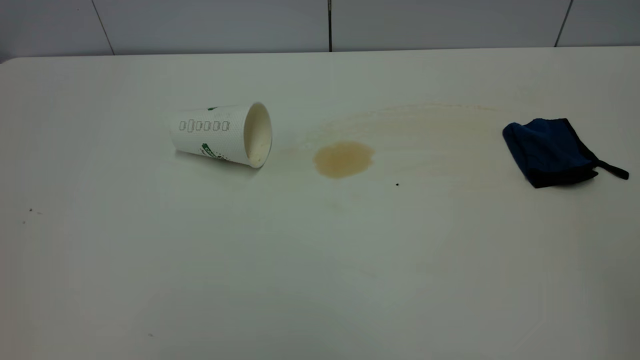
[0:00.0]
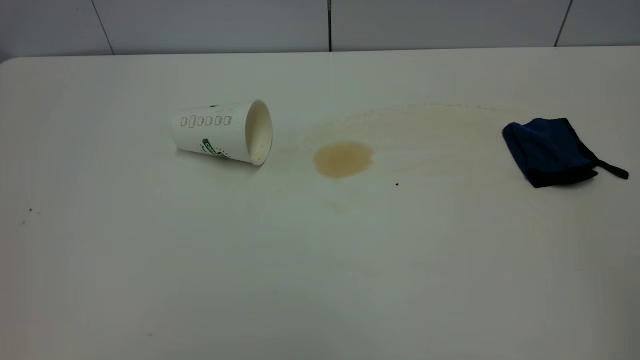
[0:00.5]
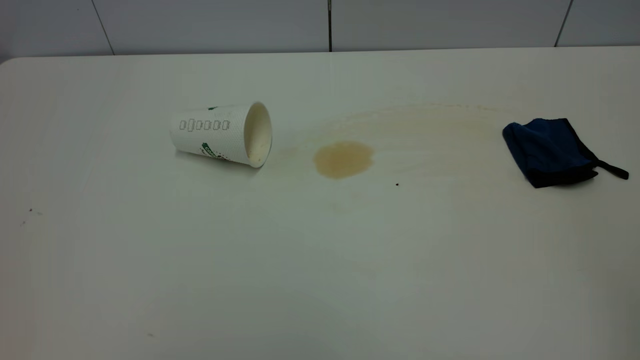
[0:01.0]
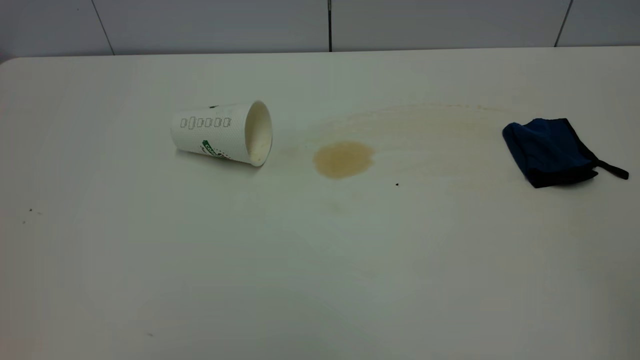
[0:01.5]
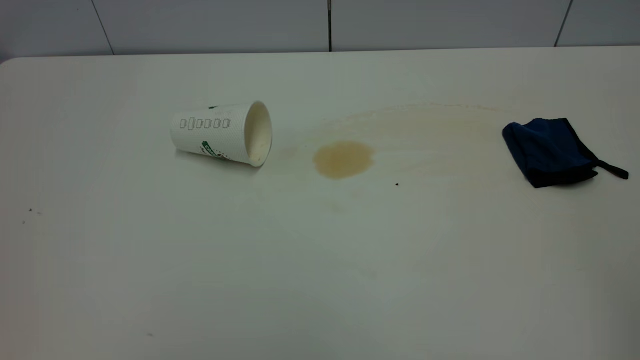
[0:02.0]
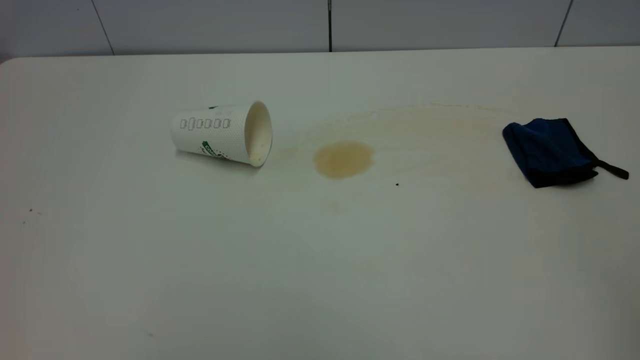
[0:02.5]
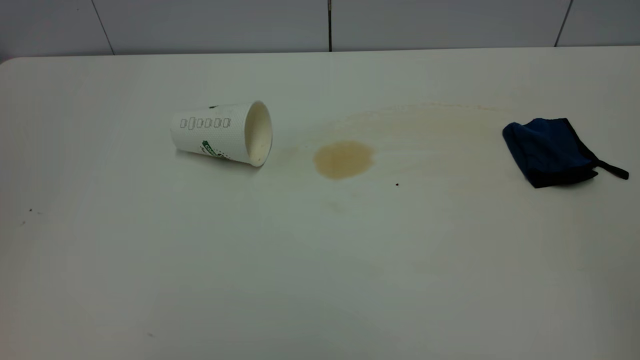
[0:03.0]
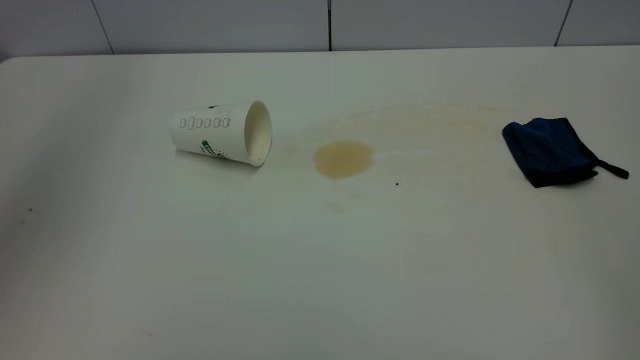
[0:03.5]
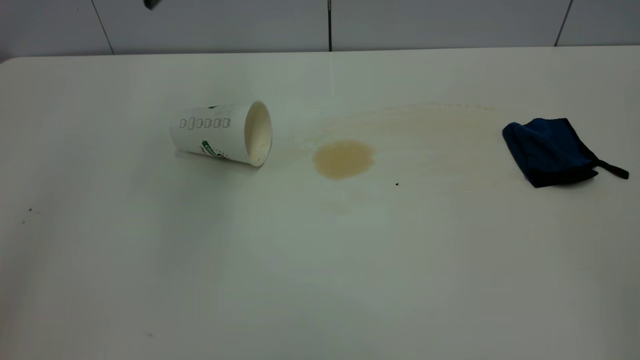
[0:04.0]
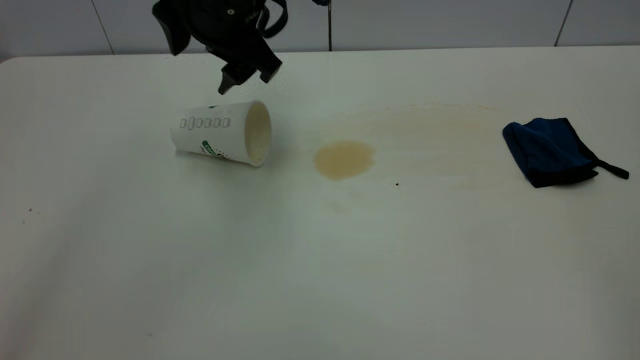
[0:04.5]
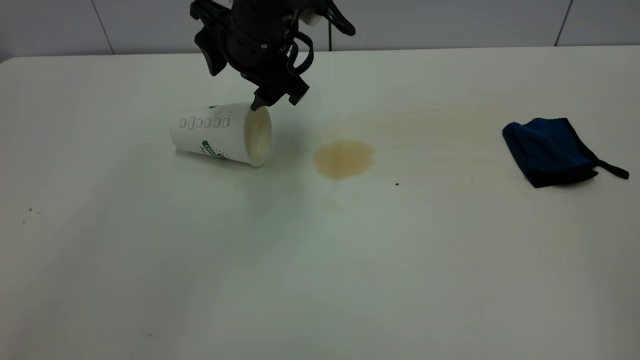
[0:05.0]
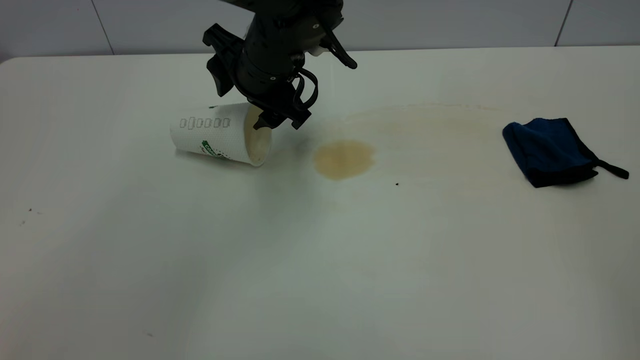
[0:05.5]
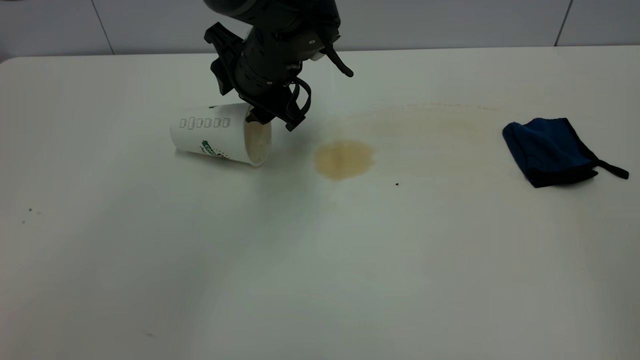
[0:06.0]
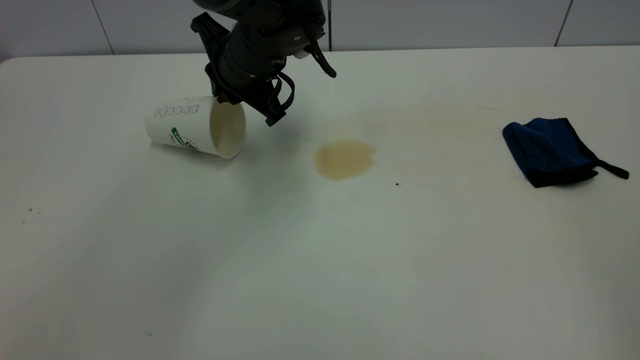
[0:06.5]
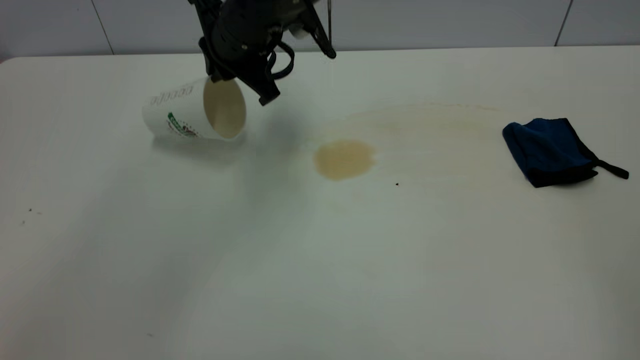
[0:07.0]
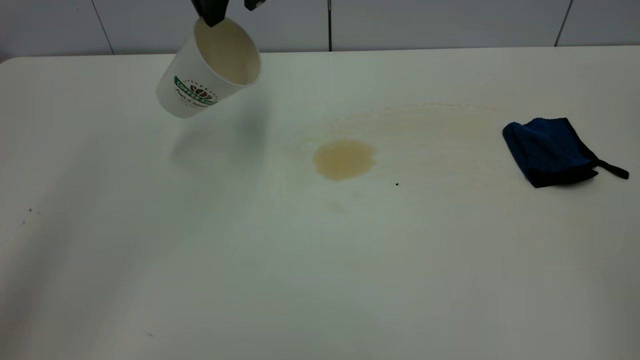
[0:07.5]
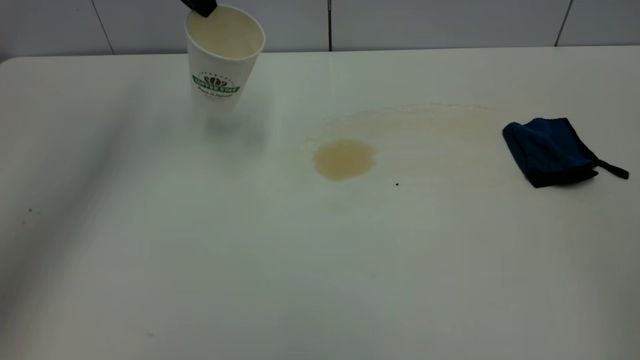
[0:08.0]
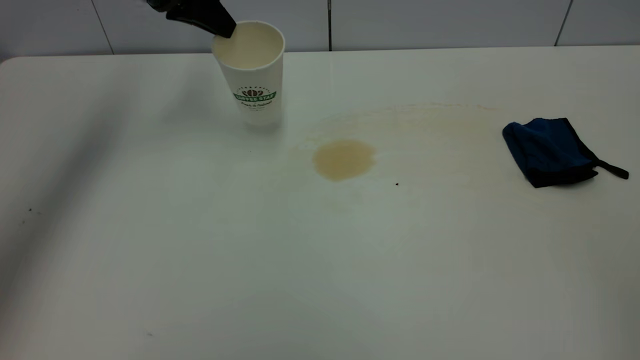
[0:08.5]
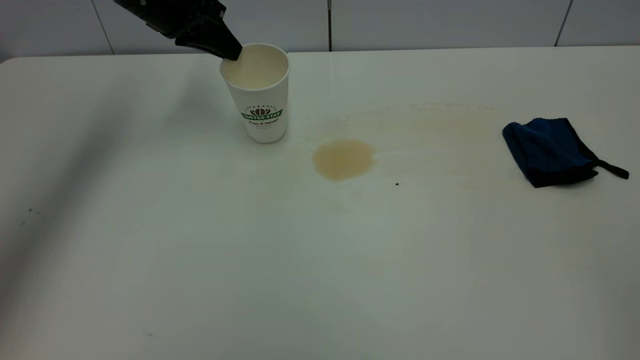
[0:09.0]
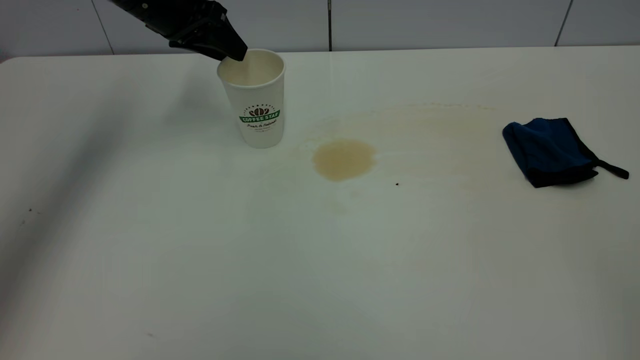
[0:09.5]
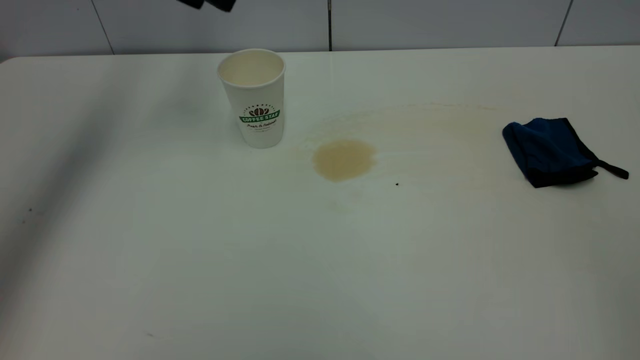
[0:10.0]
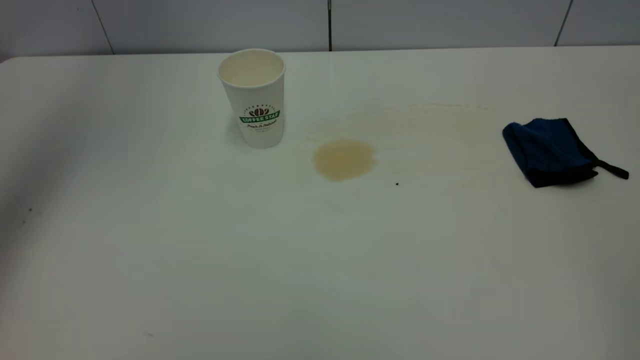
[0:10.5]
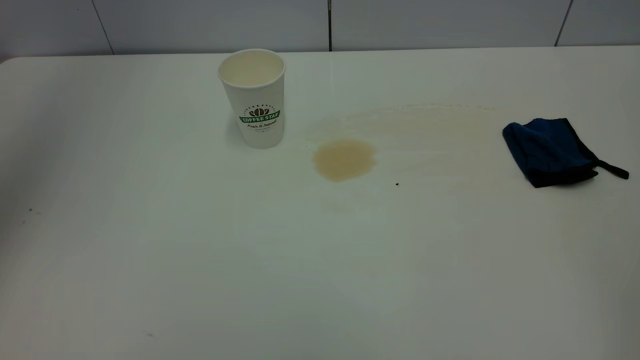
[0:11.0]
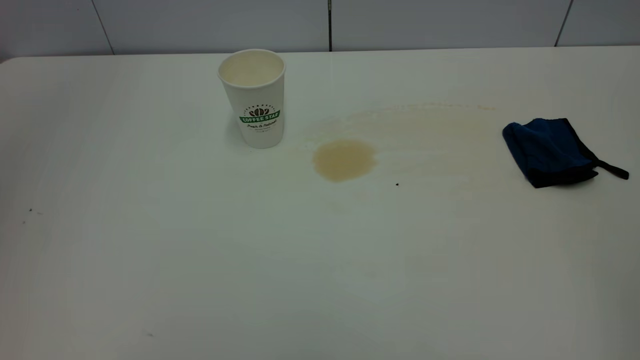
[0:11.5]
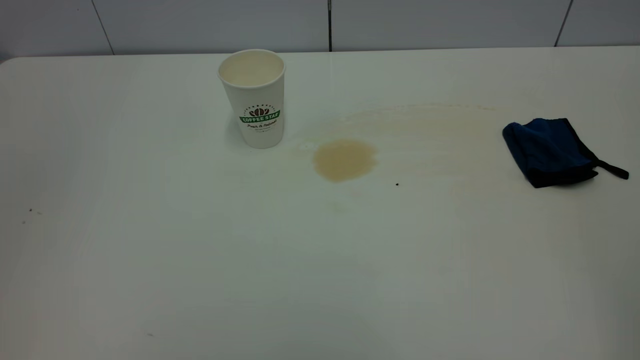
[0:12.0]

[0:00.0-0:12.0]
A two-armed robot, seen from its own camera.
Task of the whole recording: the left gripper pick up the fallen cup and place it upright, the right gripper grasp the blue rag and wipe the tea stain on the table, the right gripper put the blue rag back in its original position.
Step, 0:00.0 to 0:09.5: Stand the paper cup upright.
0:00.0 to 0:02.0: The two grippers keep their place.
0:04.0 to 0:06.0: The left gripper travels downward by roughly 20 cm.
0:06.0 to 0:08.0: The left gripper heads upward and to the left, covering some 20 cm, and closes.
0:08.0 to 0:10.0: The left gripper goes downward and returns, roughly 10 cm each way, and opens.
0:10.0 to 0:12.0: The left gripper heads backward, covering approximately 40 cm.

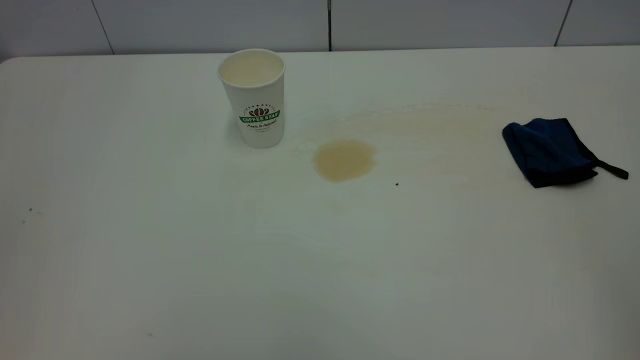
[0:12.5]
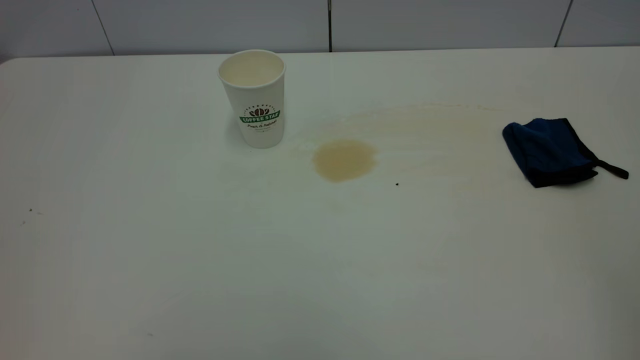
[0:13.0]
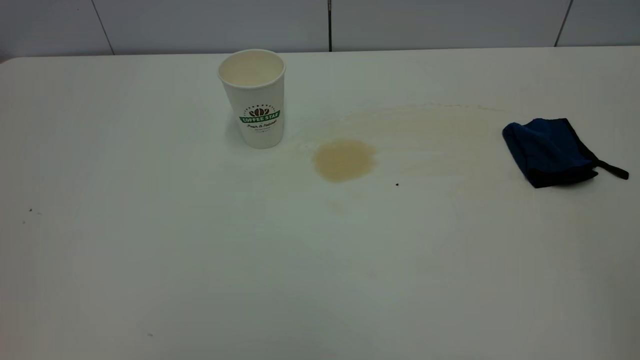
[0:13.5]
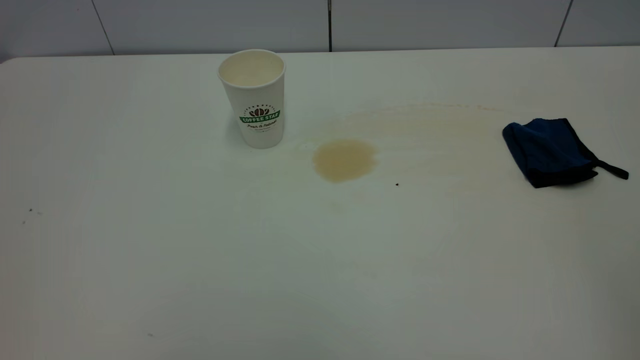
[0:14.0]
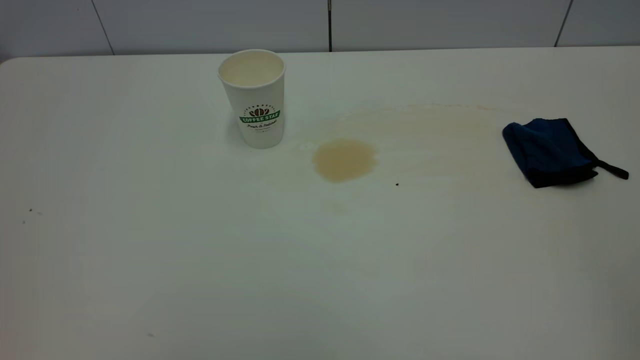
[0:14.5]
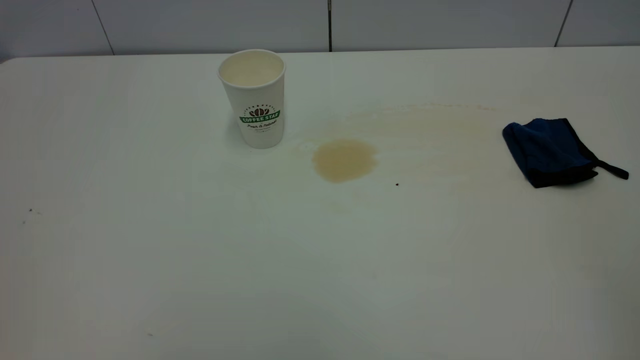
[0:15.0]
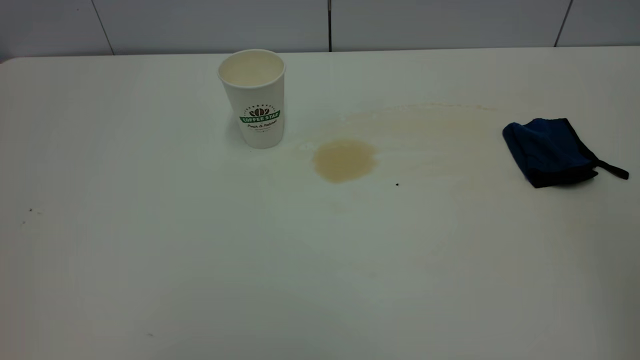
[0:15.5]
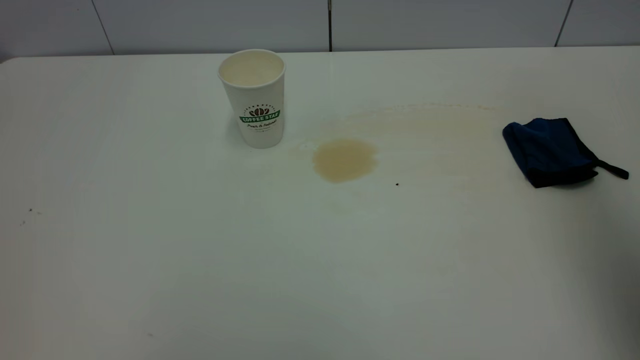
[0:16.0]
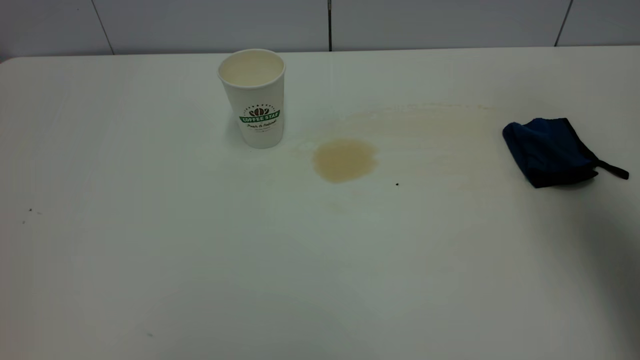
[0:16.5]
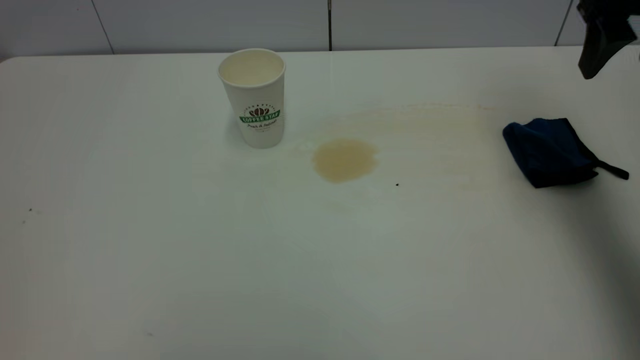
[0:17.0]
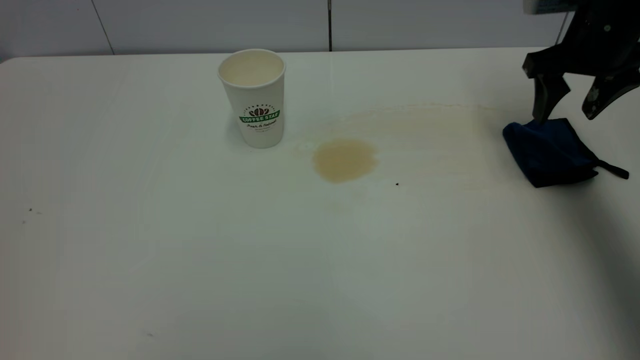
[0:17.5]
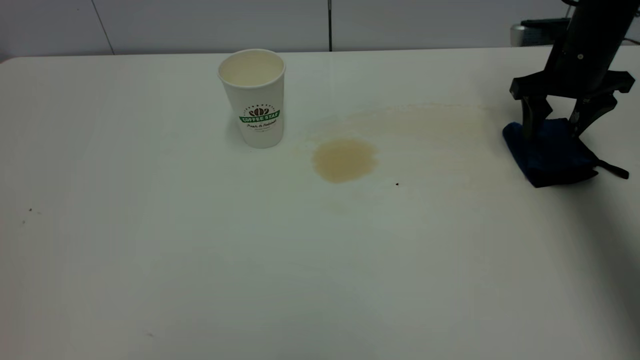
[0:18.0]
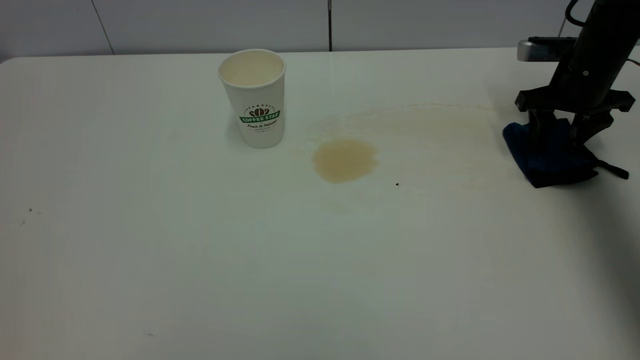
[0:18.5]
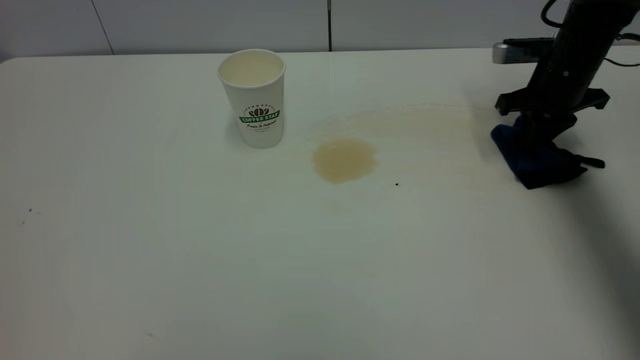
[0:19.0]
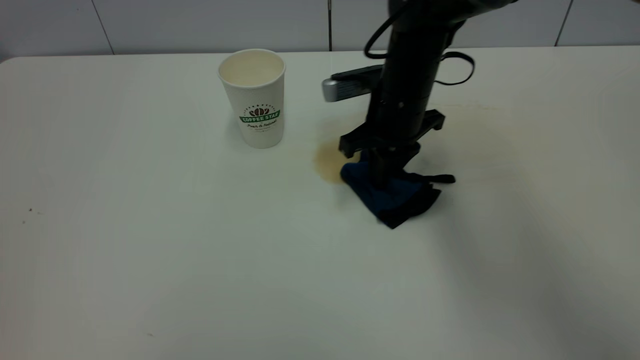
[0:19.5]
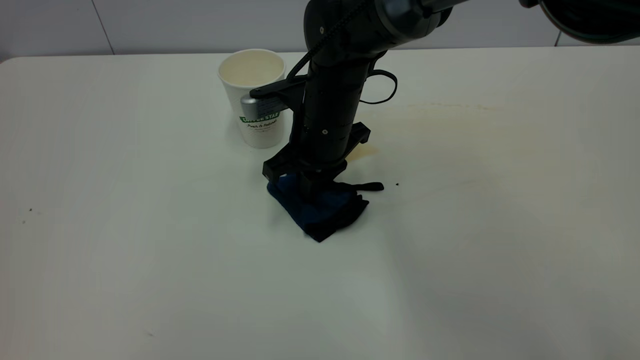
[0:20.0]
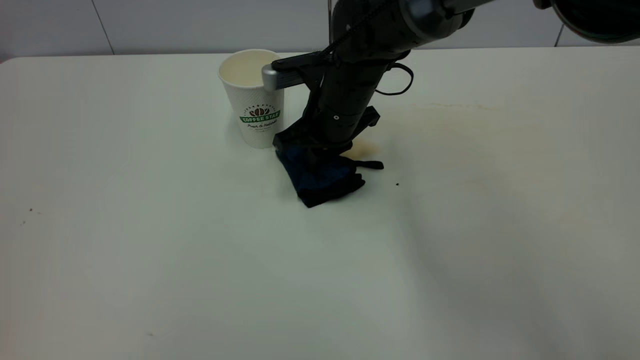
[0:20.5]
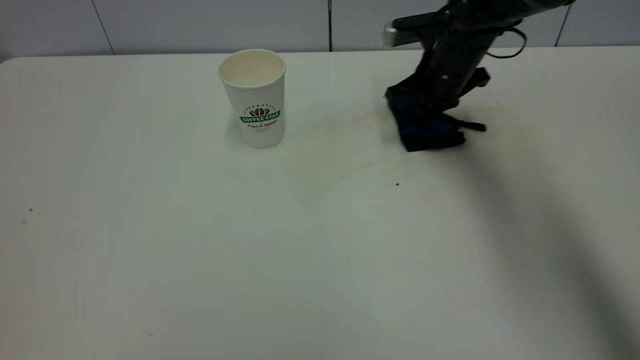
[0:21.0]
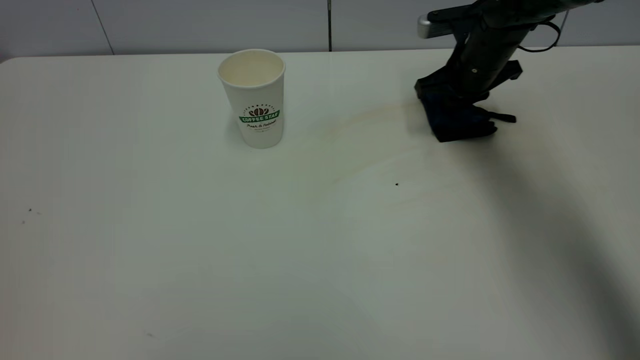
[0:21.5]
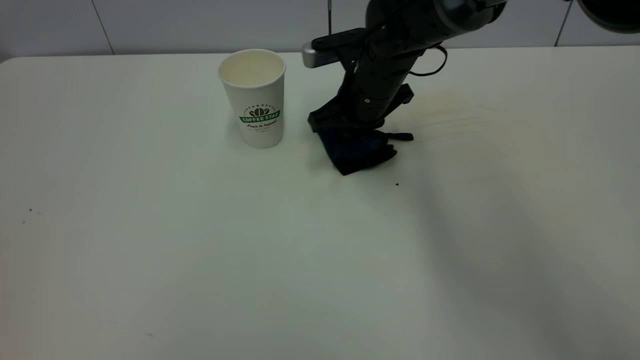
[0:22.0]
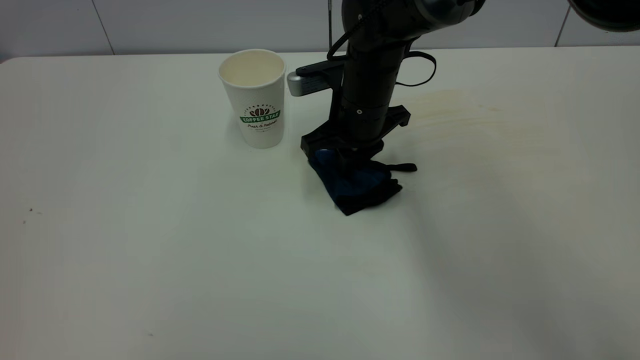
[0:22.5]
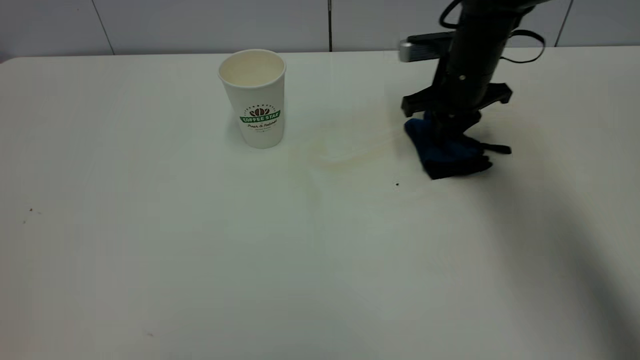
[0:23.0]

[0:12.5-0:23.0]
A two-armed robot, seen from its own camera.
Task of the whole recording: the left gripper pick up the fallen cup and place it upright, the right gripper grasp the blue rag and wipe the tea stain on the table, the right gripper put the blue rag back in its original position.
0:14.5 to 0:16.5: The right gripper shifts approximately 30 cm forward.
0:16.5 to 0:19.0: The right gripper travels downward and forward by roughly 30 cm, and closes.
0:19.0 to 0:21.0: The right gripper is displaced to the left by about 10 cm.
0:21.0 to 0:23.0: The right gripper moves approximately 15 cm to the left and comes back.
